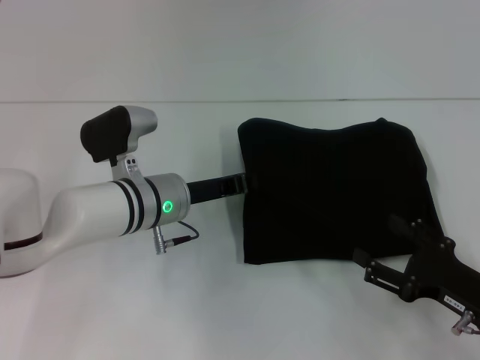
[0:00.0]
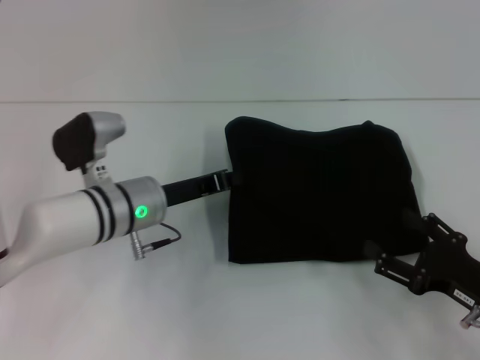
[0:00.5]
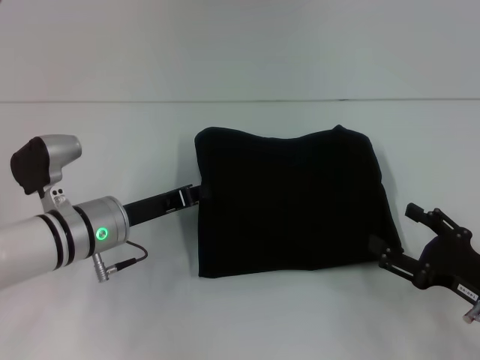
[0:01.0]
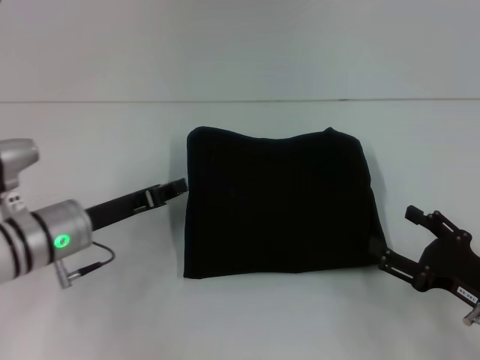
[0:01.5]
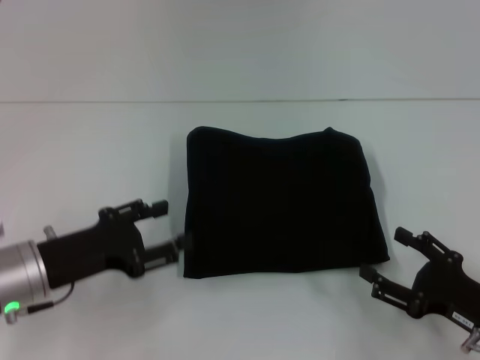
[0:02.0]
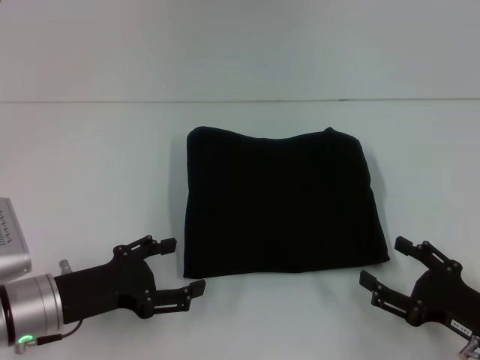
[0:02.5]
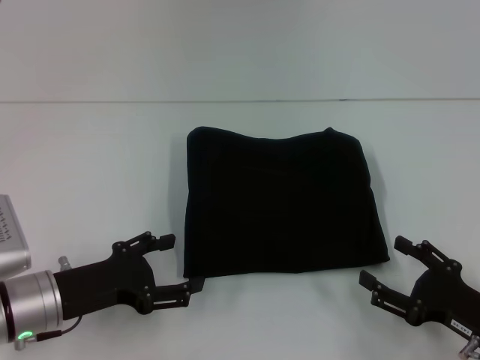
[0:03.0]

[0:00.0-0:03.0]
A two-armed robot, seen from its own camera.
0:00.0 to 0:01.5: The left gripper travels to the left by approximately 10 cm.
0:01.5 to 0:03.0: The left gripper heads backward, covering approximately 5 cm, and opens up.

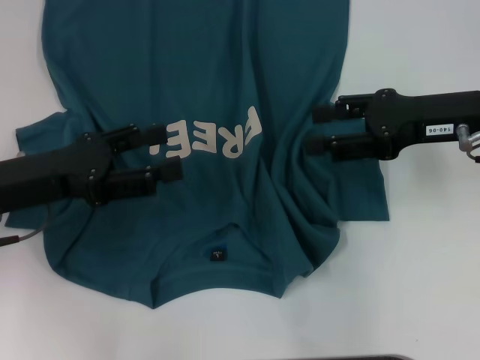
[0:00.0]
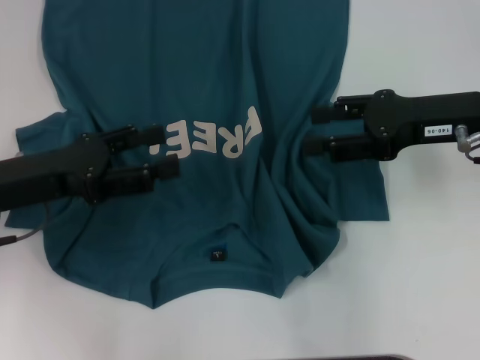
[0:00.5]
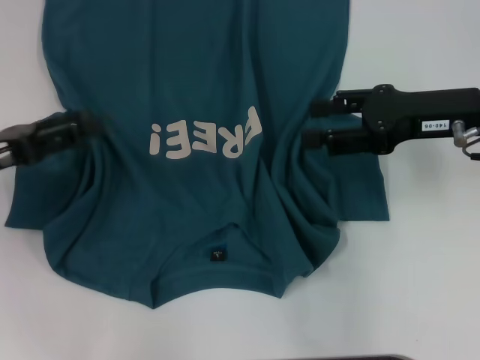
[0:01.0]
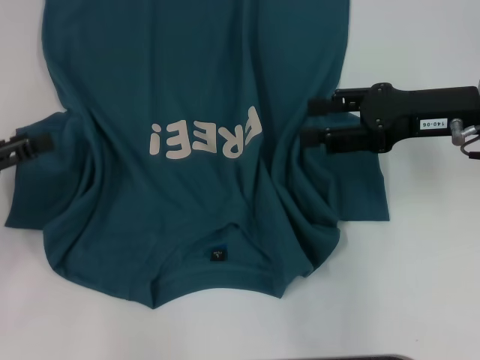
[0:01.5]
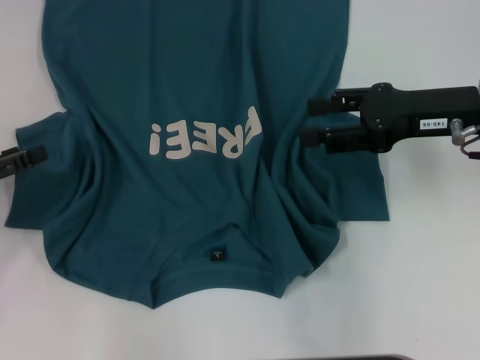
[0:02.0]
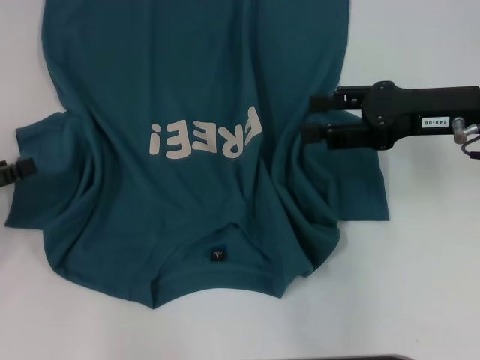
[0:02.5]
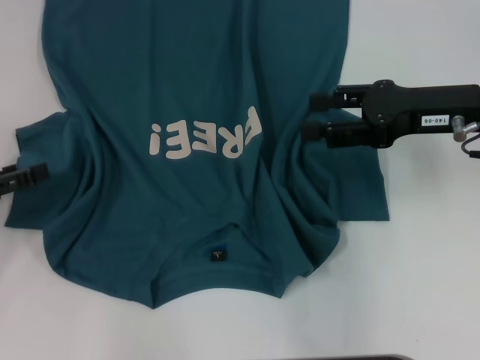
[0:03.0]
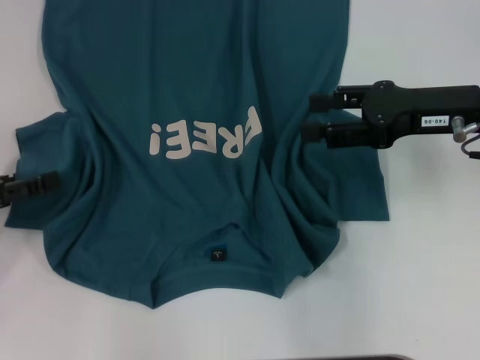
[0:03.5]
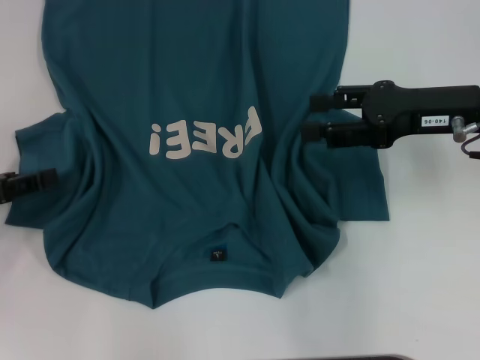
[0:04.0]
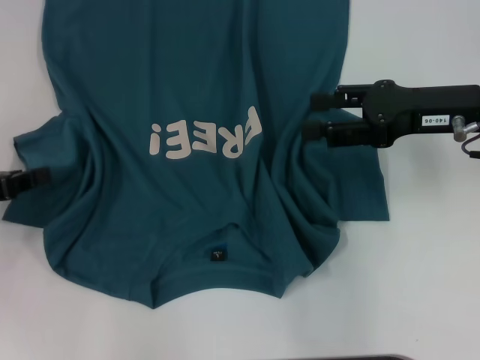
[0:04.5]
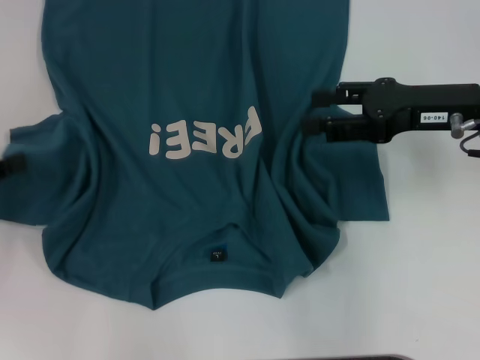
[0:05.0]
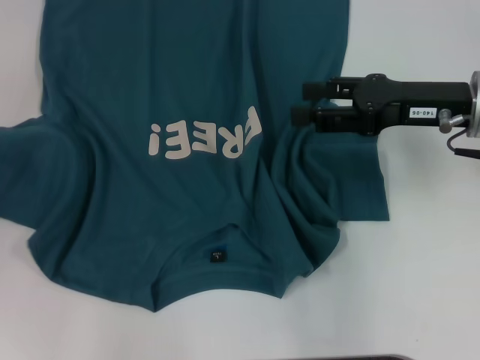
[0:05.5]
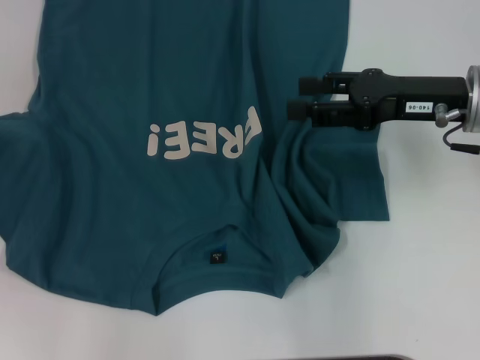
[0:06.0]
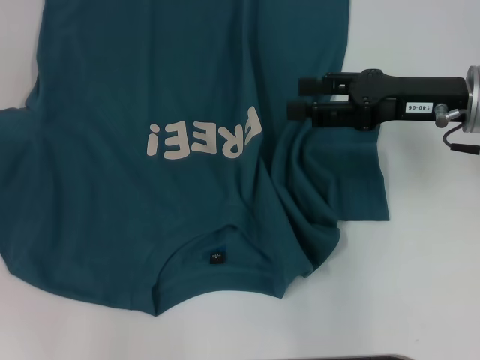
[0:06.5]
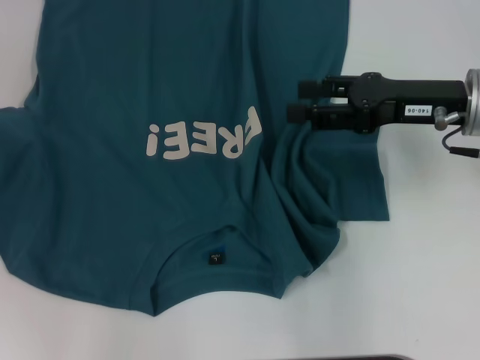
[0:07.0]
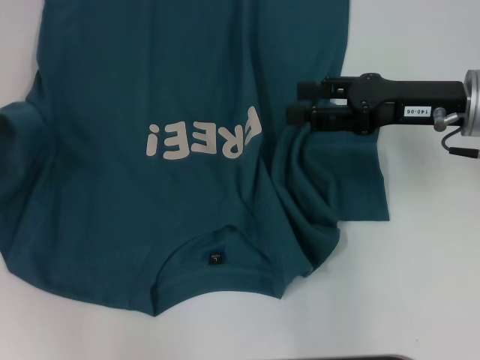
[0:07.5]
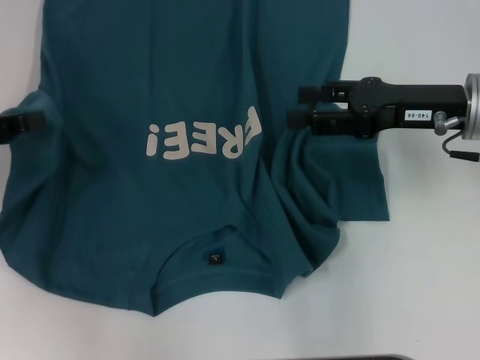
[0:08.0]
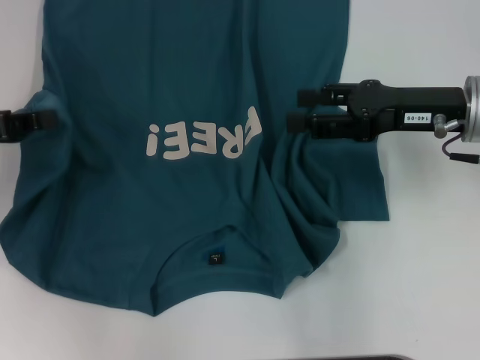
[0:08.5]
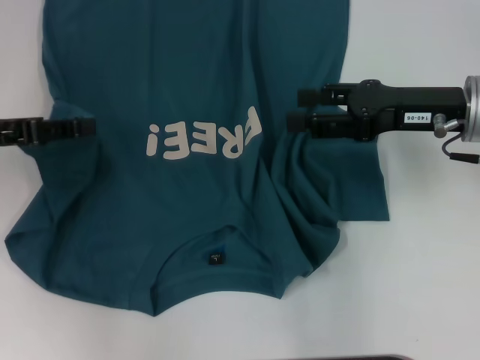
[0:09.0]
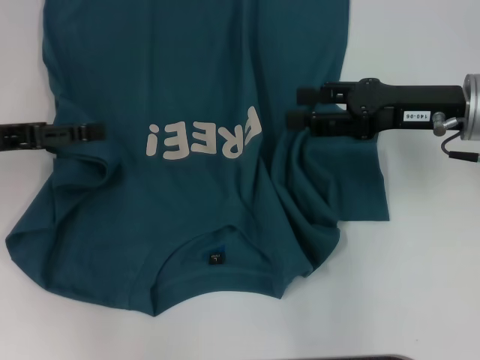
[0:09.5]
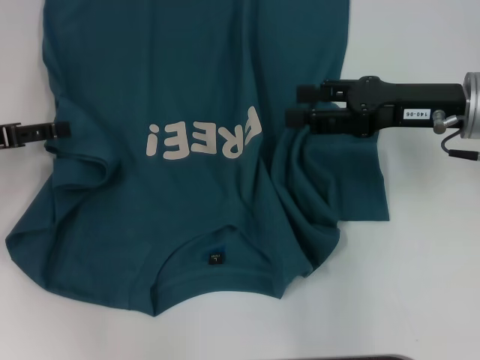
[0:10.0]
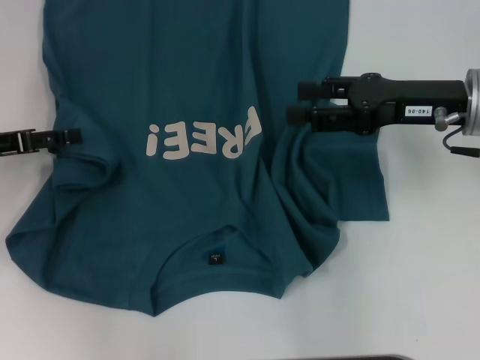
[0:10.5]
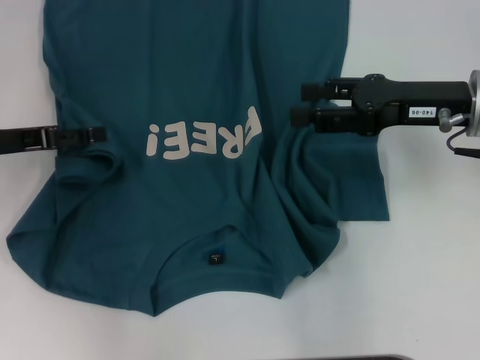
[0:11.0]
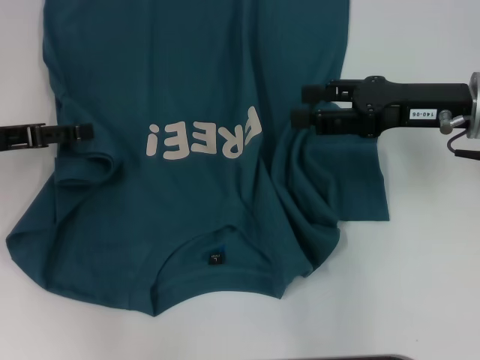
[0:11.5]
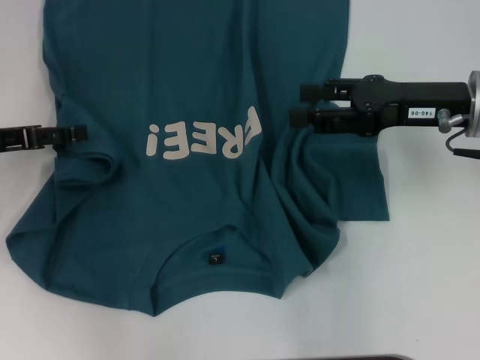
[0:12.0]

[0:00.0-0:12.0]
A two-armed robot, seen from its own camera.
0:00.0 to 0:02.0: The left gripper is displaced to the left by about 10 cm.
0:02.0 to 0:04.0: The grippers stay close to where they were, moving slightly.
0:04.0 to 0:06.0: The left gripper goes roughly 10 cm to the left and upward, and closes its fingers.
0:06.0 to 0:08.0: The left gripper travels to the right by about 5 cm.
0:08.0 to 0:10.0: The left gripper opens up.
0:10.0 to 0:12.0: The grippers make only small movements.

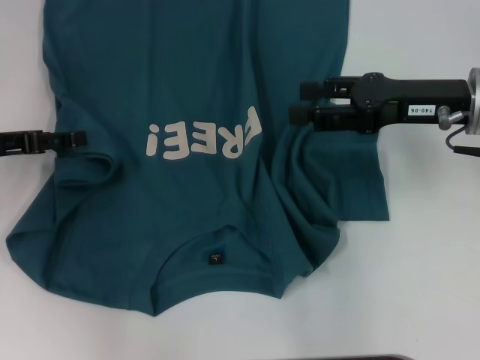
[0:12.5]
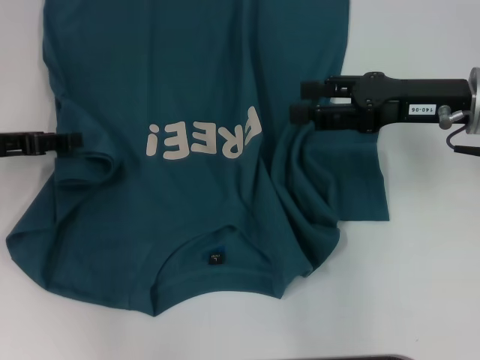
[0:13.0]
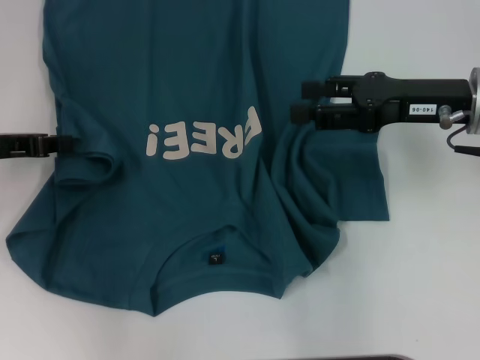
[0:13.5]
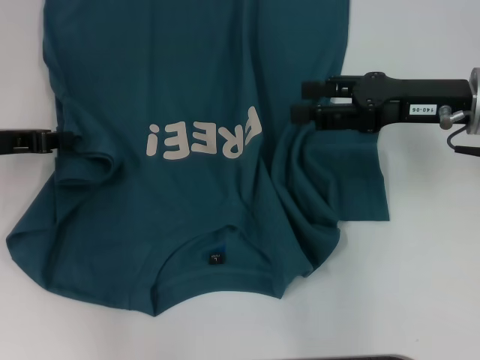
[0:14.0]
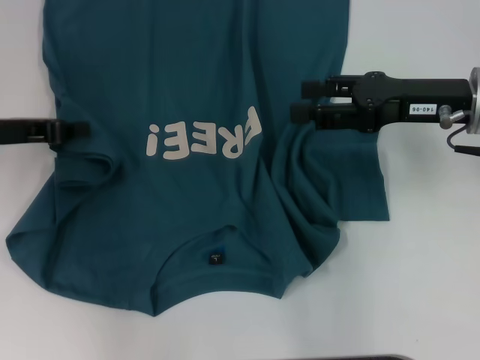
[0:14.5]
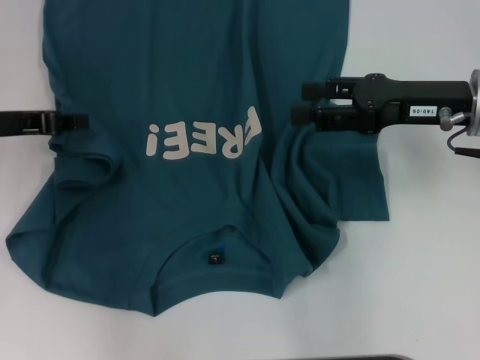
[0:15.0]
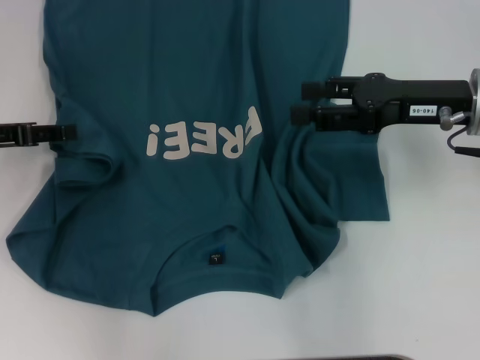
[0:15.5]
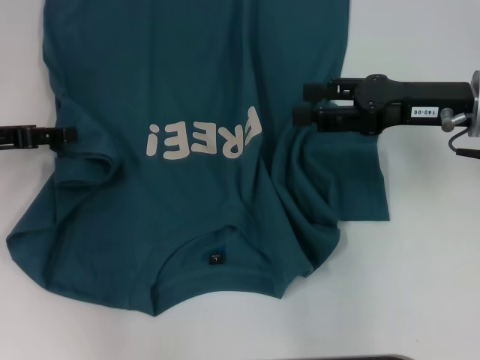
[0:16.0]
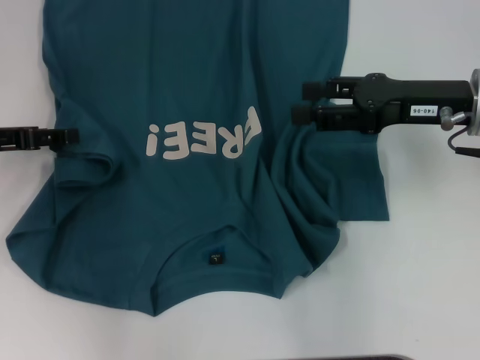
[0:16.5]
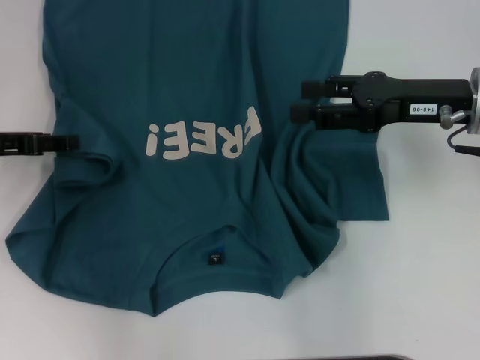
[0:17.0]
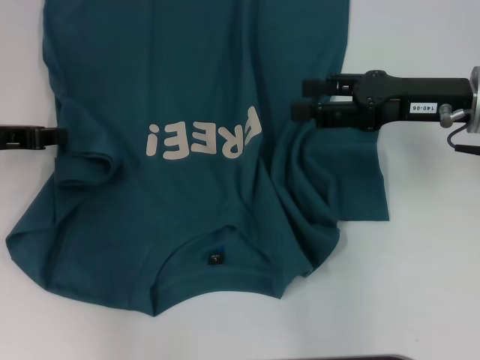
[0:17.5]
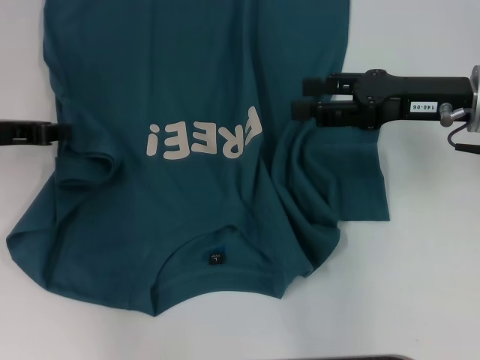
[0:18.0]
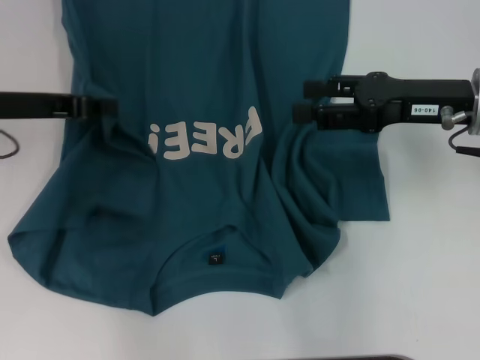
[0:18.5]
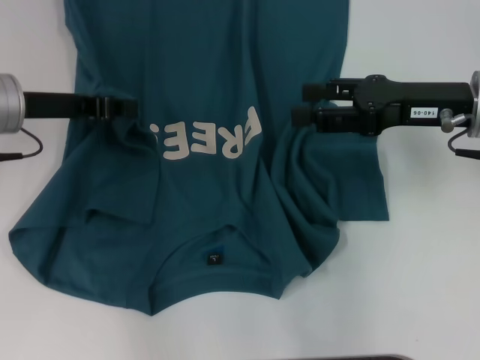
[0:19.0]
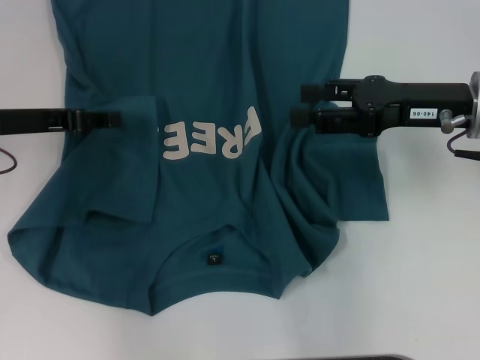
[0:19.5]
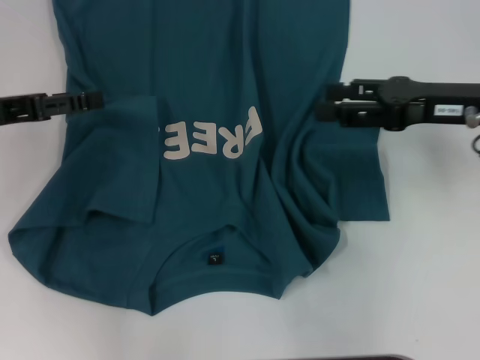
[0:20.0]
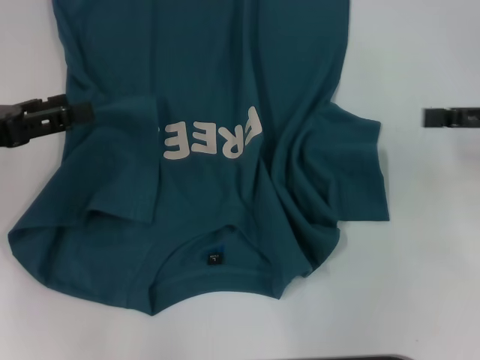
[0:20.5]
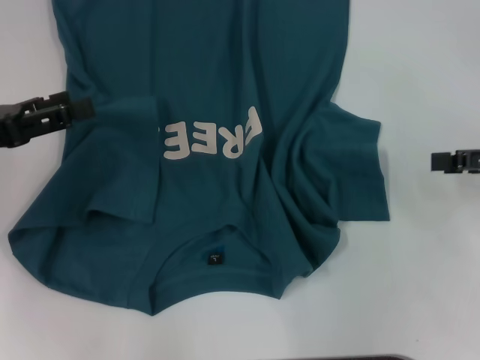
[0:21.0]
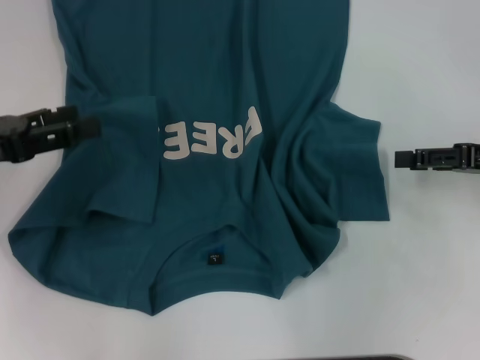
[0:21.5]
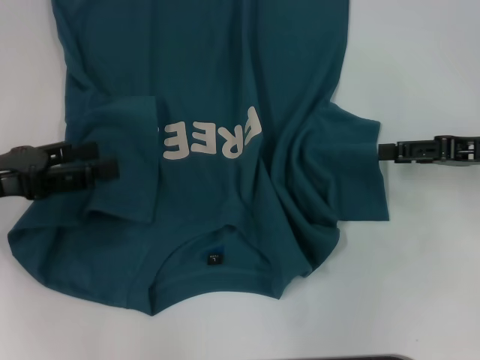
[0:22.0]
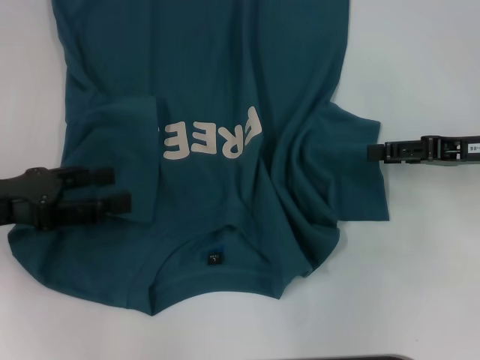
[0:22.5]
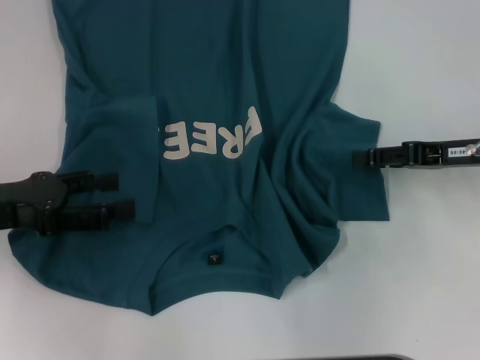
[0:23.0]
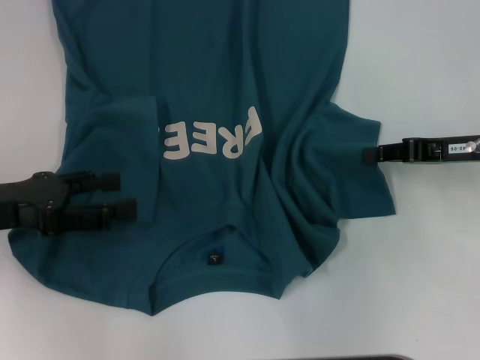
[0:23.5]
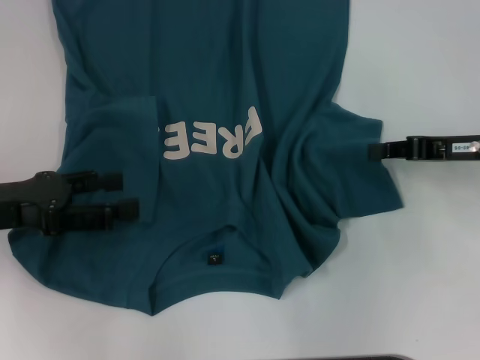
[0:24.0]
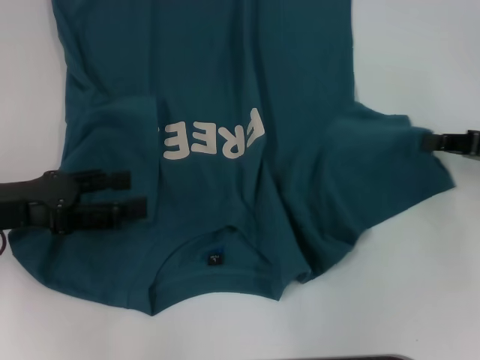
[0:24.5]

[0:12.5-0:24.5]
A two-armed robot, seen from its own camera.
Step, 0:12.5 to 0:19.5: Fold the bottom left sleeve with your left hand.
0:12.5 to 0:14.5: The left gripper closes.
0:14.5 to 0:16.5: The left gripper opens up.
0:16.5 to 0:18.5: The left gripper moves to the right, approximately 5 cm, and closes its fingers.
0:18.5 to 0:20.5: The right gripper goes roughly 10 cm to the right. Meanwhile the left gripper heads backward and to the left, covering approximately 10 cm, and opens.
0:20.5 to 0:22.5: The right gripper travels downward by about 5 cm.
0:22.5 to 0:24.5: The right gripper closes its fingers.
